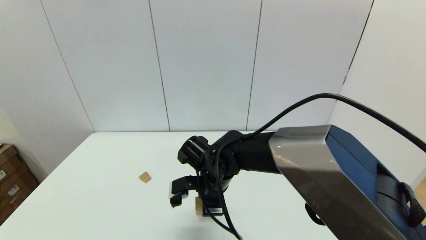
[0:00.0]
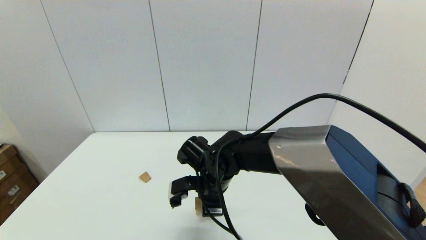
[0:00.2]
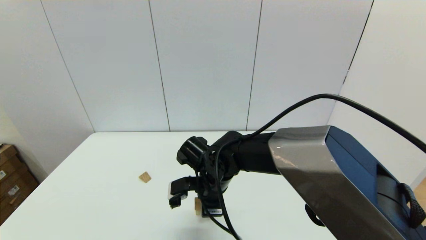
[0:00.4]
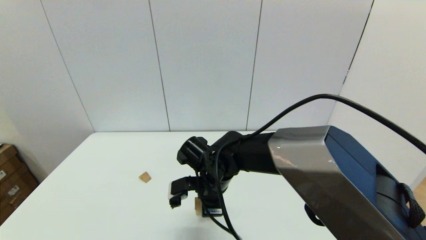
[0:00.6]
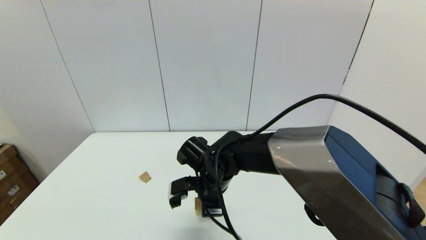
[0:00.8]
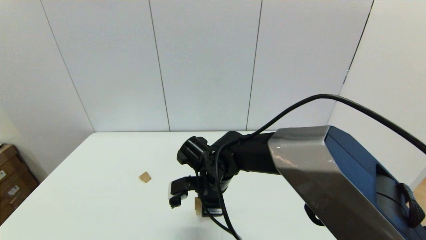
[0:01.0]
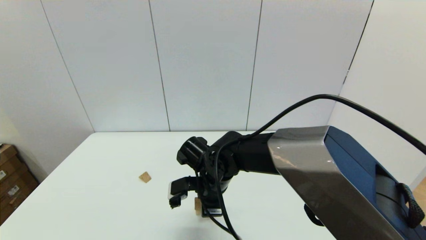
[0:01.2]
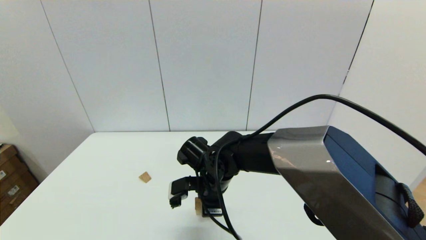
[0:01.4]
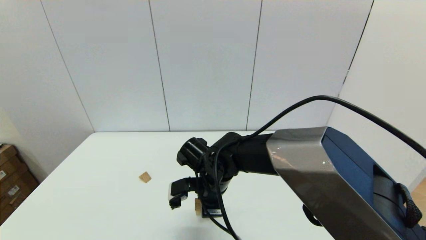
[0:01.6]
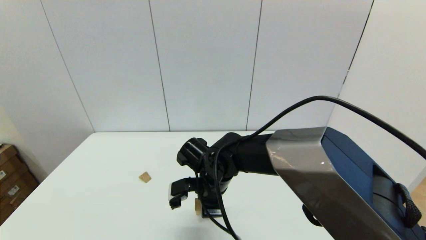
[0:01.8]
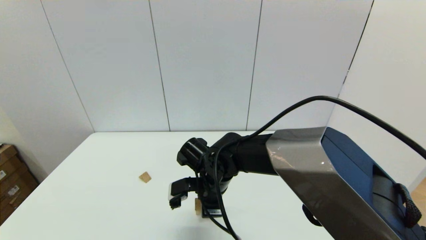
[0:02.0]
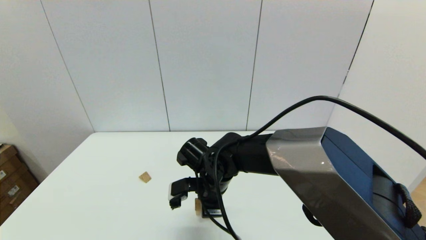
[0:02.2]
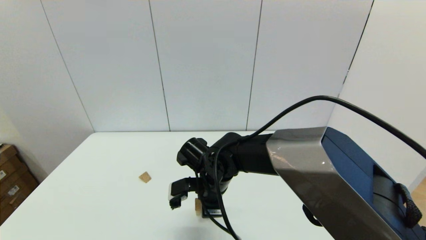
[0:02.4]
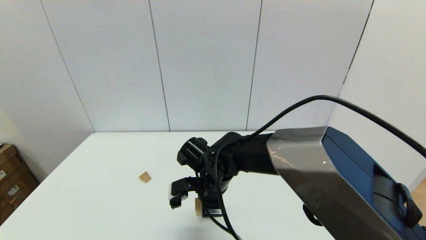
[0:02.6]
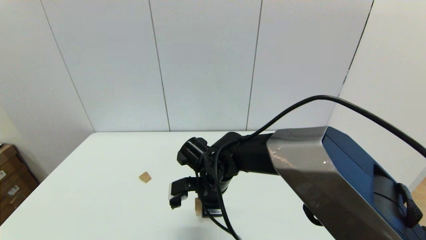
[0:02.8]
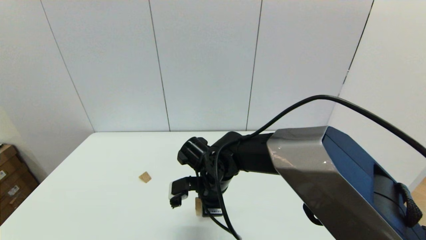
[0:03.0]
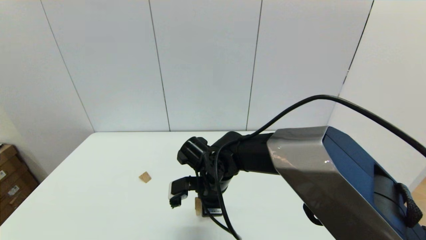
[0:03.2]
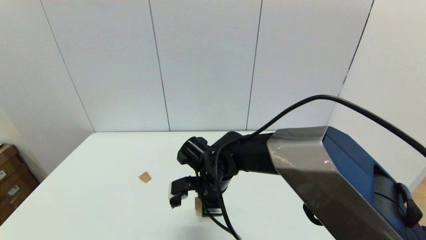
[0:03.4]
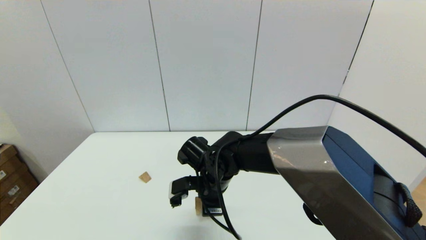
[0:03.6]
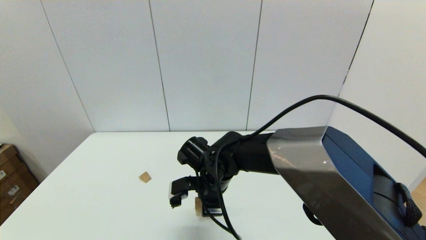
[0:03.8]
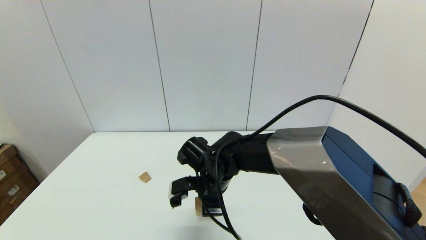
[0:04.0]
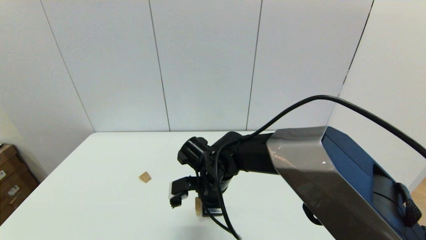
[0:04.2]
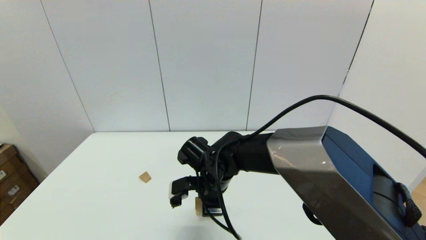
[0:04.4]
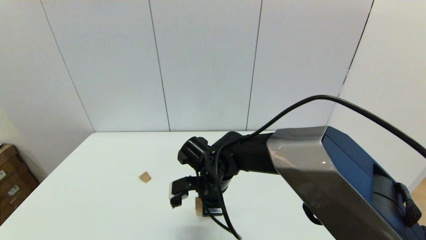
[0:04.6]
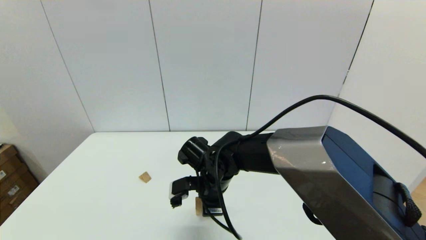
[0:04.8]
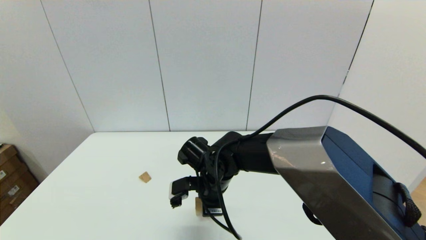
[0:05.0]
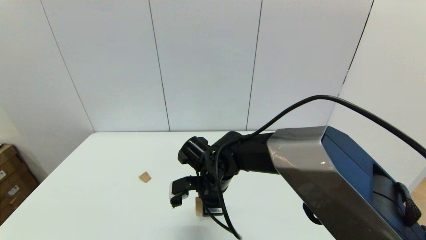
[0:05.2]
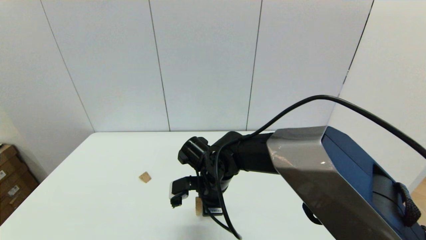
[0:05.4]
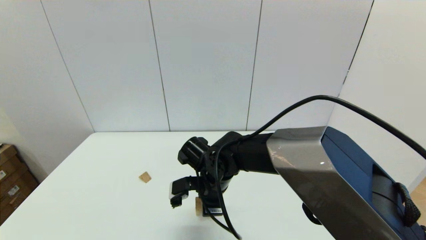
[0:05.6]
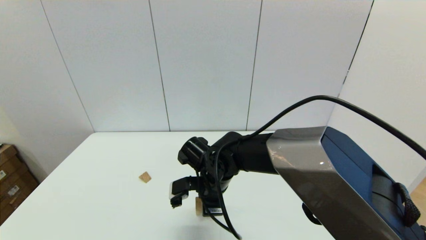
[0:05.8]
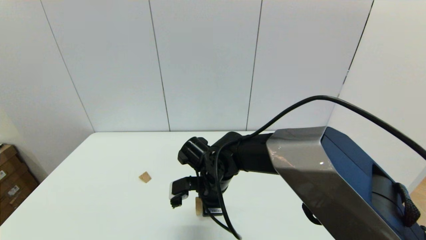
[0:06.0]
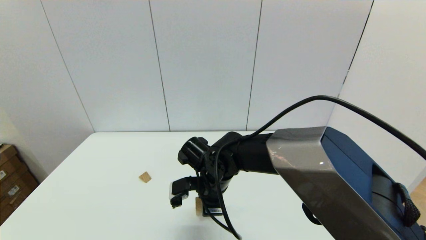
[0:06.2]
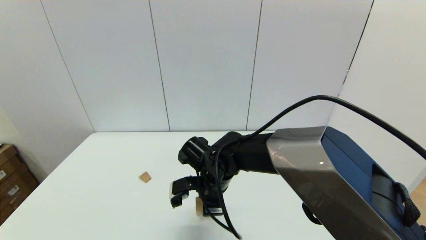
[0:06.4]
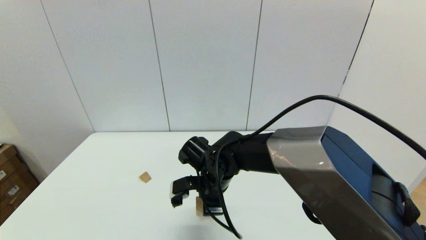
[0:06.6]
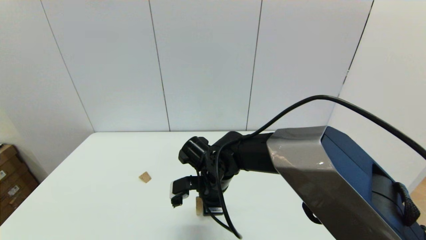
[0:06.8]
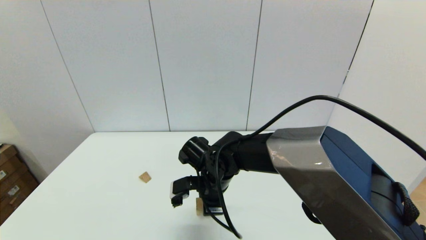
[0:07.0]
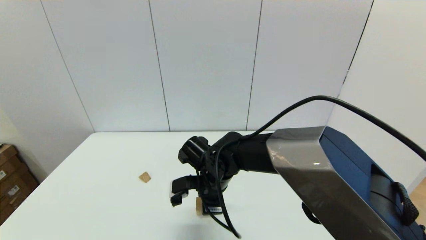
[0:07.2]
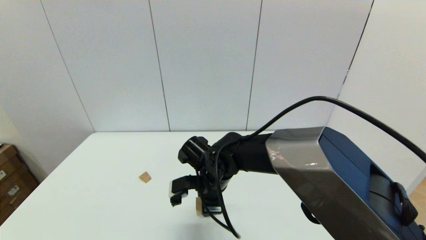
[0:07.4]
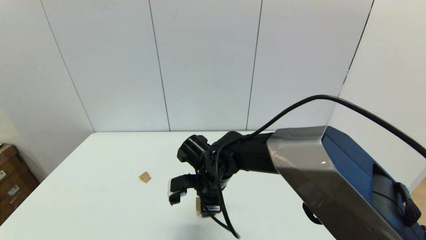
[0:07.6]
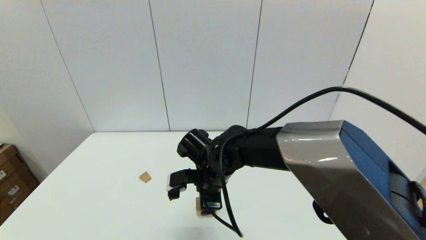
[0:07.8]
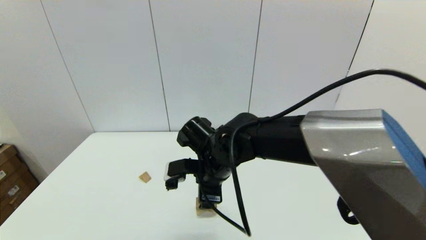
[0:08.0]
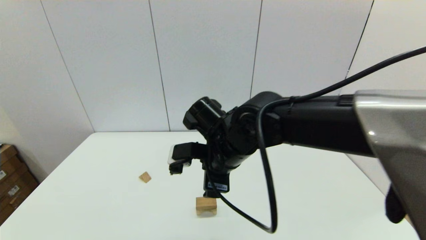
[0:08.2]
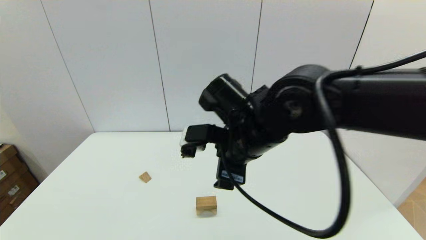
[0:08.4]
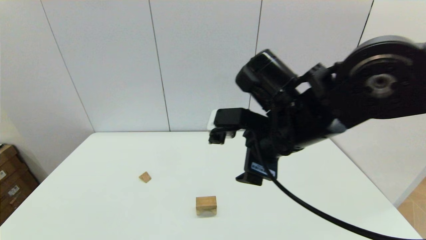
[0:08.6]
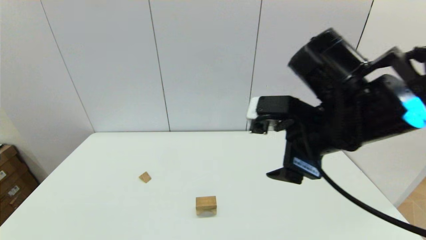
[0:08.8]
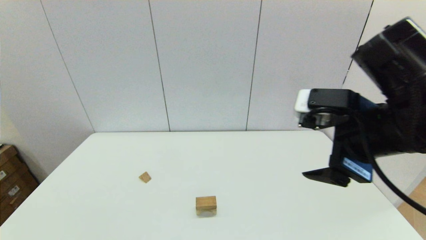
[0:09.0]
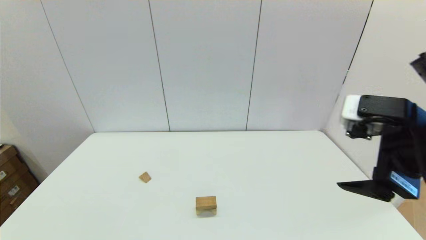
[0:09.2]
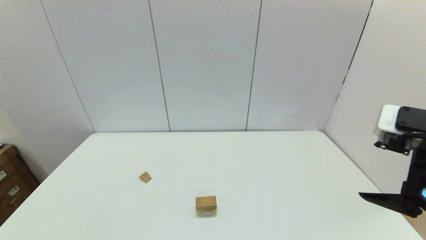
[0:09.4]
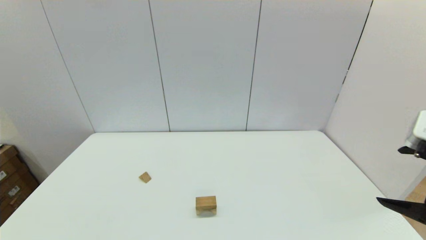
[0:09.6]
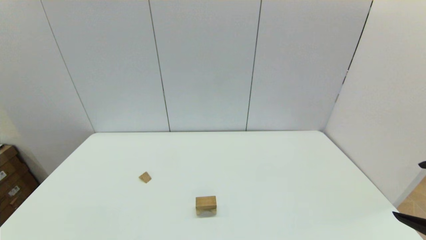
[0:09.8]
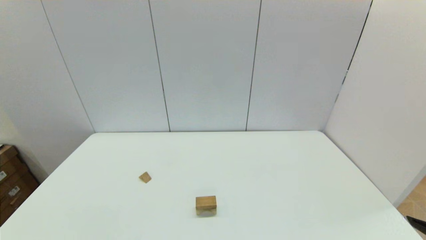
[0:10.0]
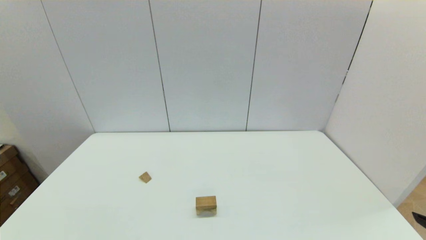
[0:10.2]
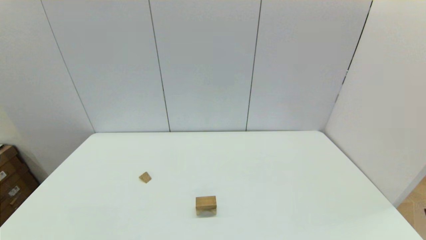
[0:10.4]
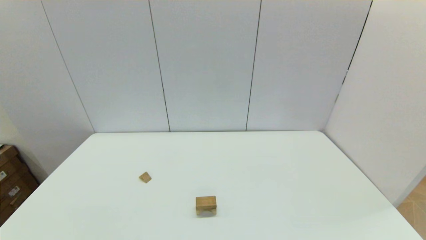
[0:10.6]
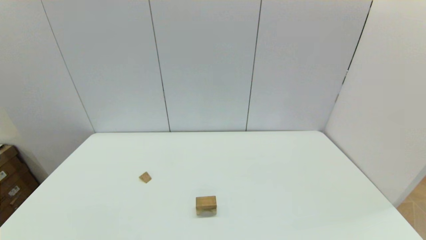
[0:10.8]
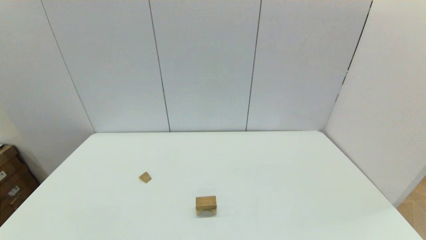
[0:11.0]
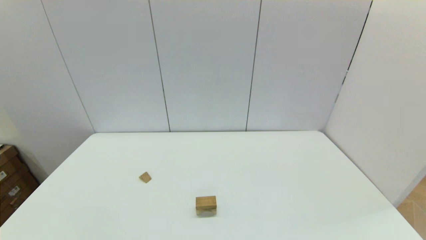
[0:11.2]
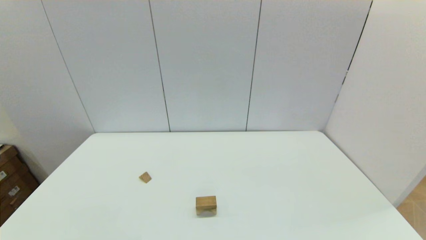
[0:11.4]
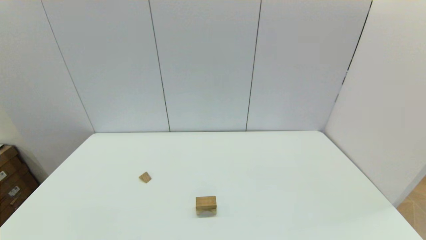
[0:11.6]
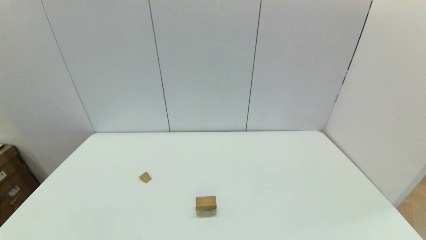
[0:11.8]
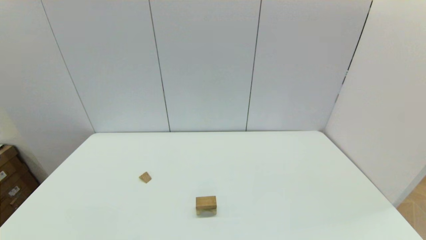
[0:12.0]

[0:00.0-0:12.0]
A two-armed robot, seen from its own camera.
Task of the whole recording: place the arched building blocks in the center of the table, set up the rectangular building blocks, and then set up the triangular building blocks.
Step, 0:00.0 to 0:07.6: Place the box-shaped block onto the arch-shaped block with the right gripper.
0:00.0 to 0:06.0: Both grippers stay put.
0:06.0 to 0:07.6: The right gripper opens up.
0:07.6 to 0:09.0: The right gripper moves to the right, upward and backward, roughly 30 cm.
0:09.0 to 0:10.4: The right gripper is displaced backward and to the right by some 20 cm.

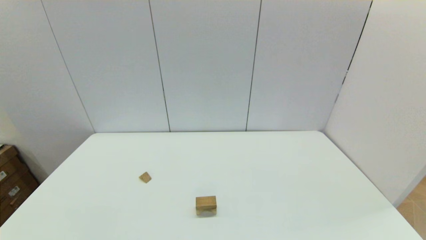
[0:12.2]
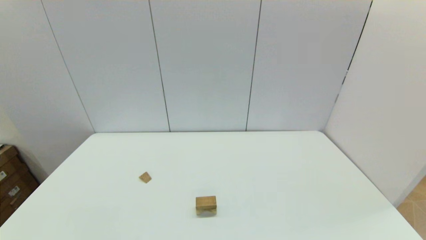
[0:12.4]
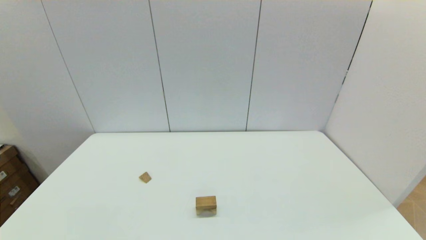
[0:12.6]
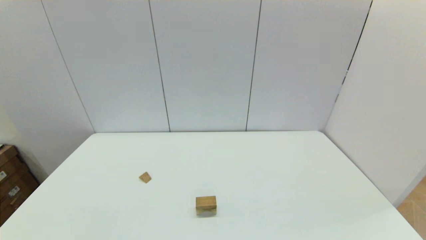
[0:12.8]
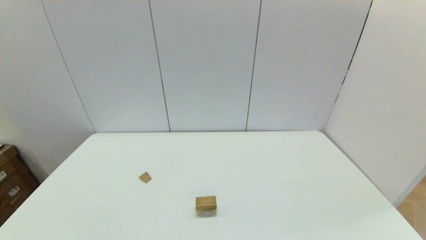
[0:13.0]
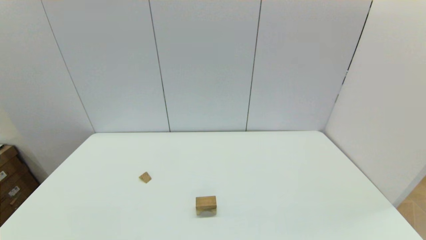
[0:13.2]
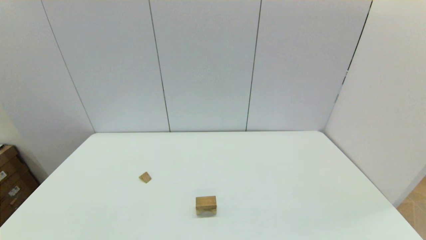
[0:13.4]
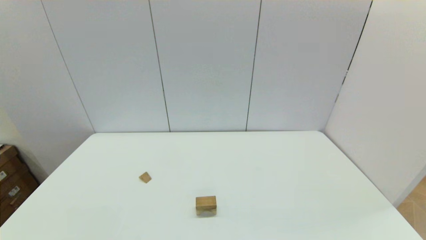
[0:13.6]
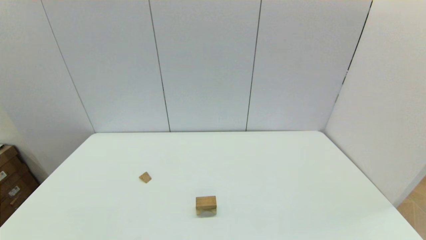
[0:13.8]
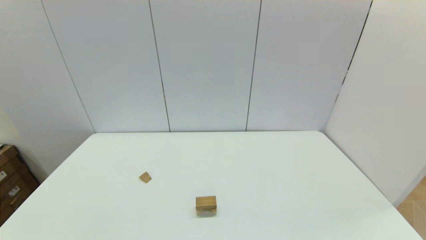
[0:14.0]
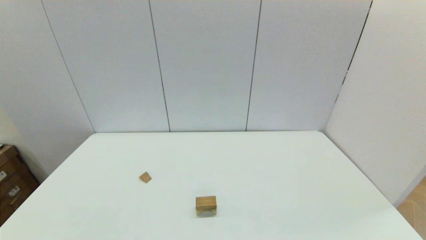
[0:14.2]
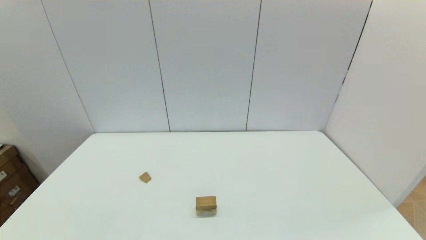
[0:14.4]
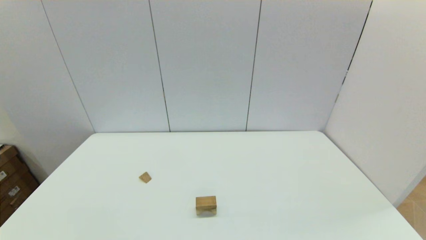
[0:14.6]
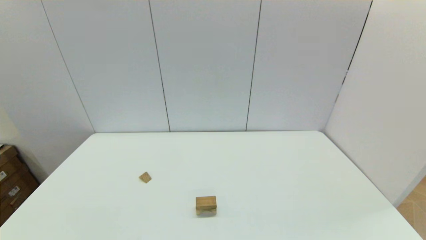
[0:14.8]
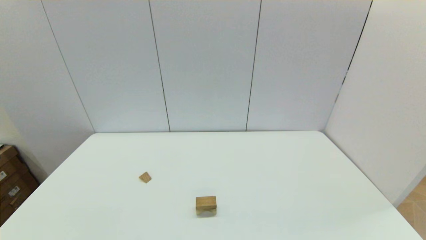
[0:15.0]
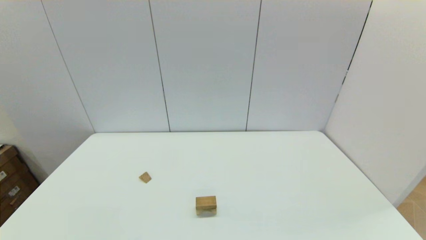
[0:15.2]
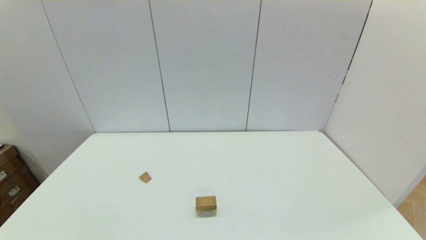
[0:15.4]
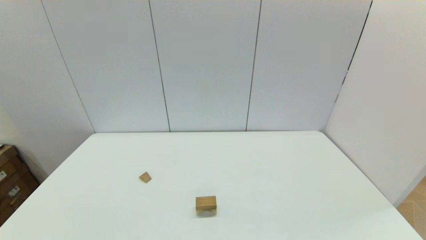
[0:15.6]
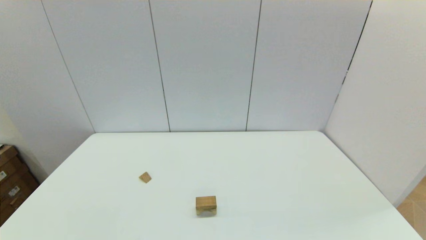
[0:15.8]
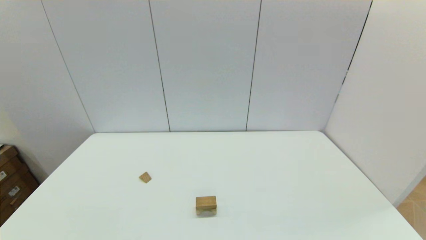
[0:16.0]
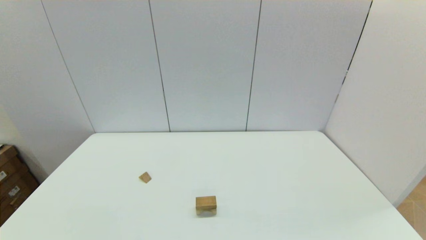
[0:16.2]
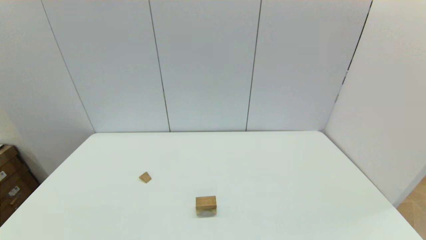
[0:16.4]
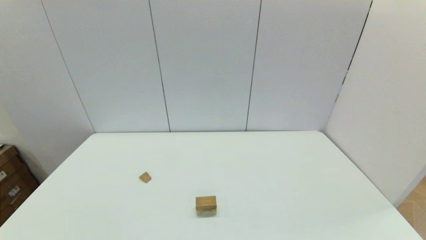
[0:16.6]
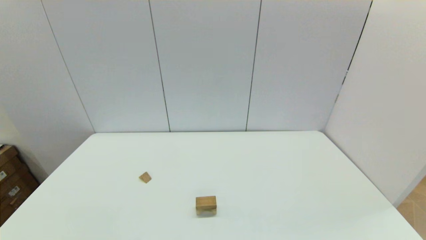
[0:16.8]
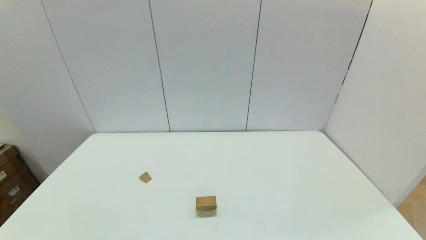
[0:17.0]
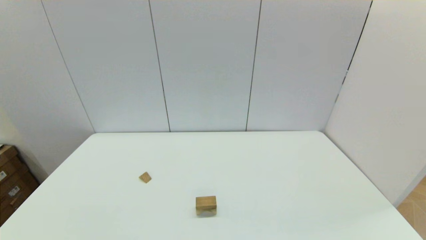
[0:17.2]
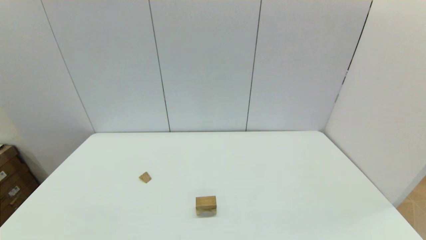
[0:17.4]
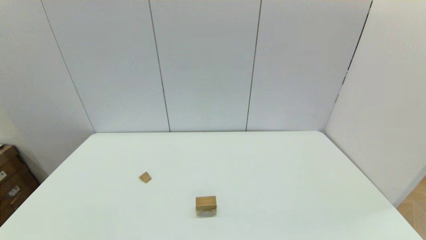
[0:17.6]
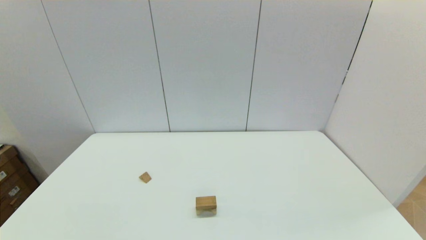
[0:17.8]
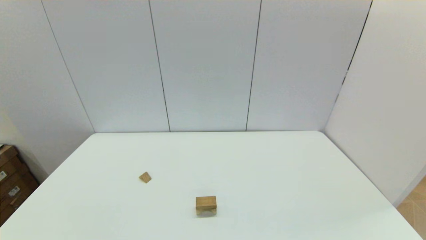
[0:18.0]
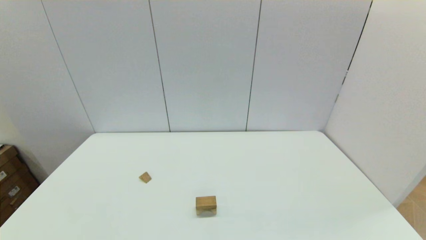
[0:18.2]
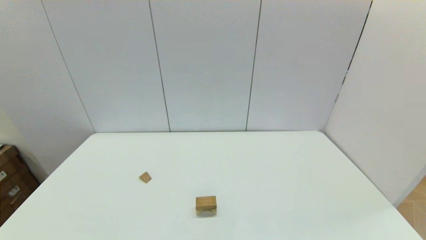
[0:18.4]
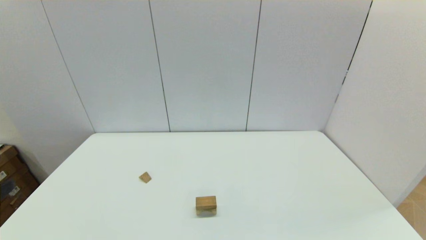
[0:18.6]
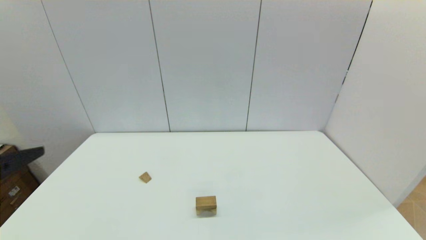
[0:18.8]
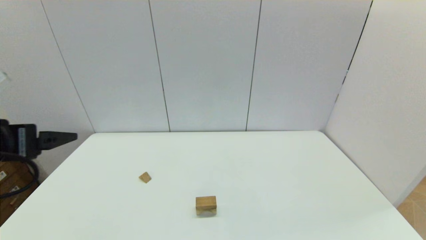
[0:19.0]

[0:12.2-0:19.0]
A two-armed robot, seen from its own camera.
Task of the whole recording: place the arched building blocks in the center of the table, set up the rectangular building blocks, and then set up the triangular building blocks.
0:15.0 to 0:17.6: Both grippers stay put.
0:17.6 to 0:19.0: The left gripper goes about 25 cm forward and upward.
